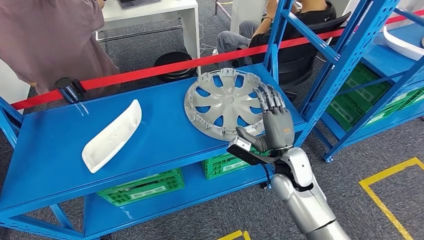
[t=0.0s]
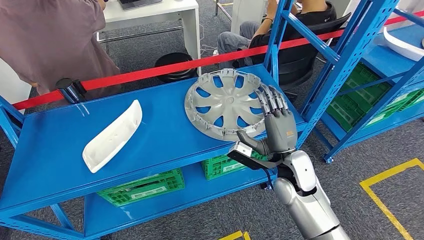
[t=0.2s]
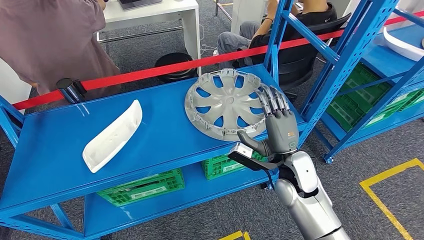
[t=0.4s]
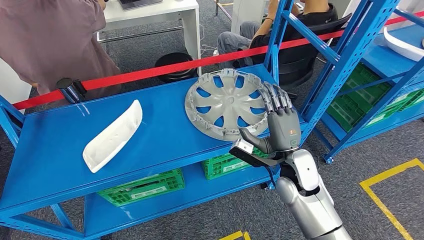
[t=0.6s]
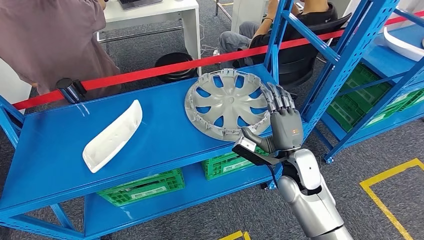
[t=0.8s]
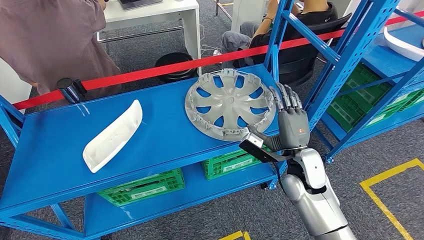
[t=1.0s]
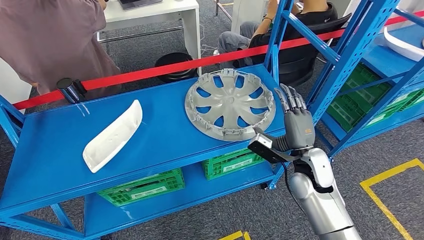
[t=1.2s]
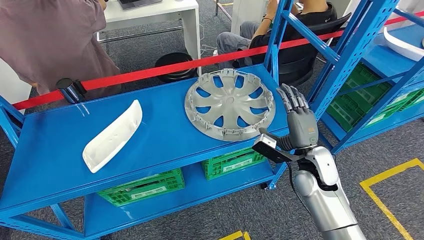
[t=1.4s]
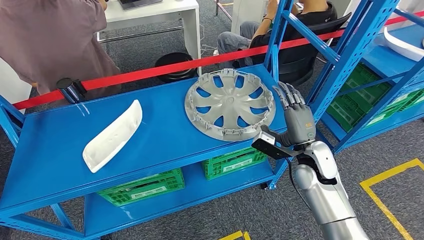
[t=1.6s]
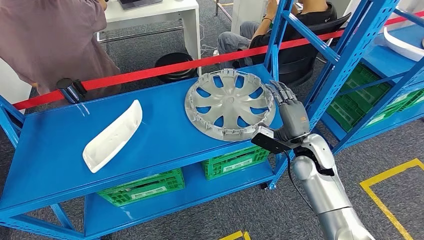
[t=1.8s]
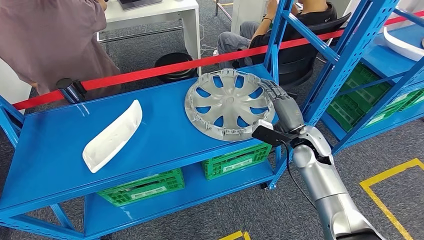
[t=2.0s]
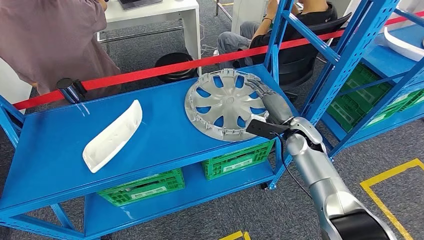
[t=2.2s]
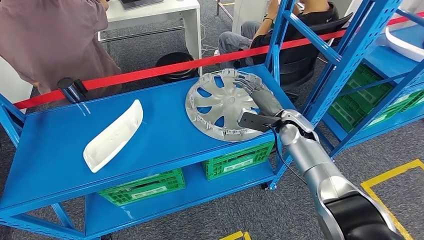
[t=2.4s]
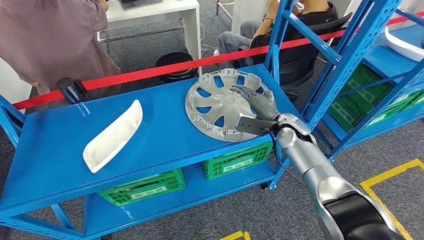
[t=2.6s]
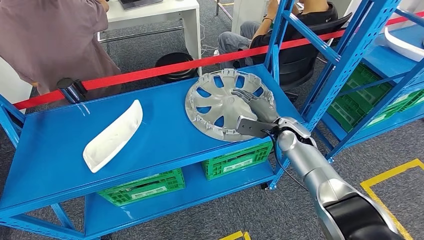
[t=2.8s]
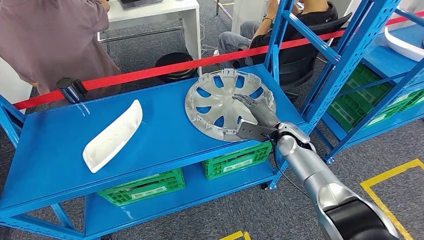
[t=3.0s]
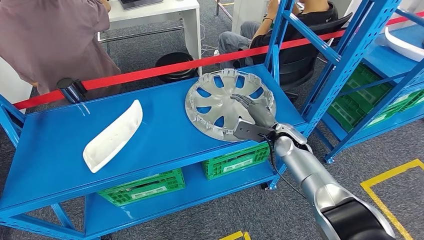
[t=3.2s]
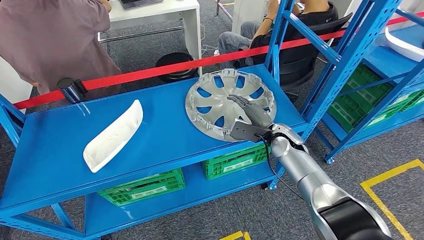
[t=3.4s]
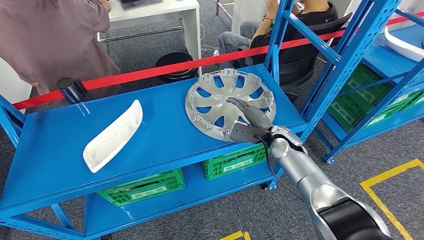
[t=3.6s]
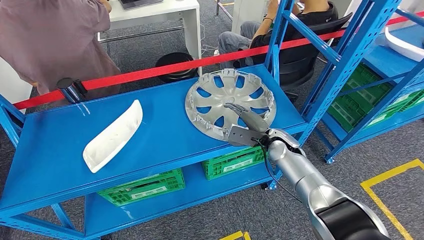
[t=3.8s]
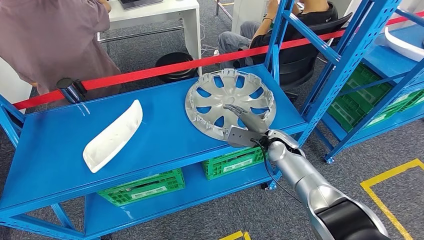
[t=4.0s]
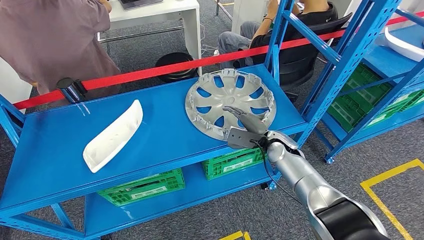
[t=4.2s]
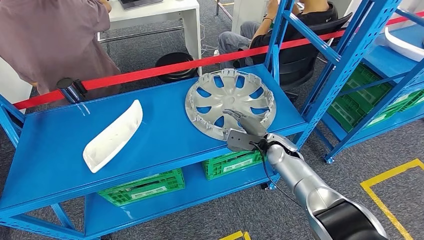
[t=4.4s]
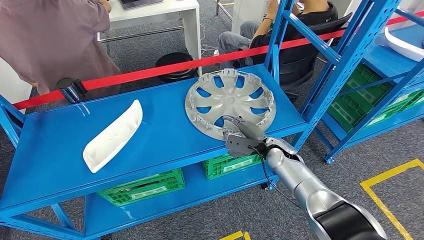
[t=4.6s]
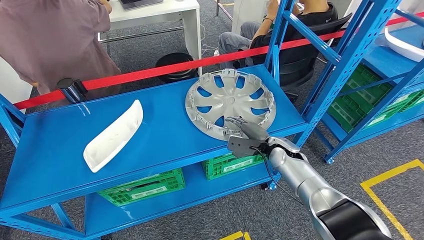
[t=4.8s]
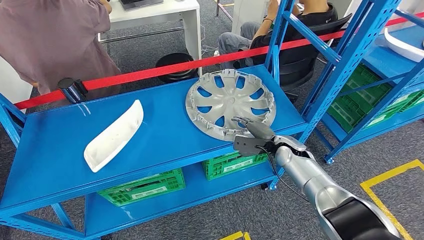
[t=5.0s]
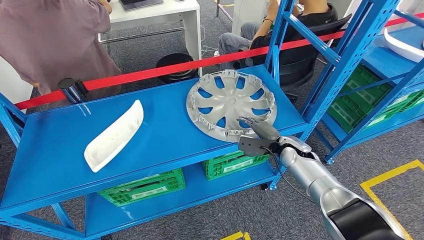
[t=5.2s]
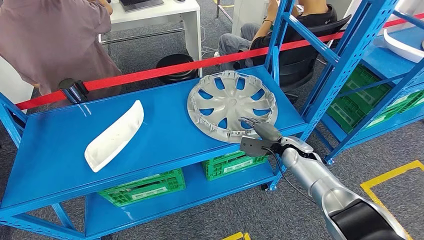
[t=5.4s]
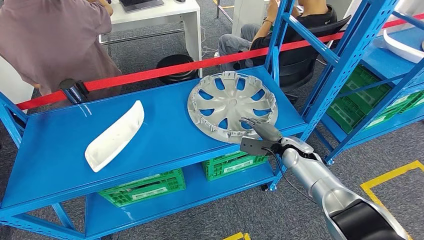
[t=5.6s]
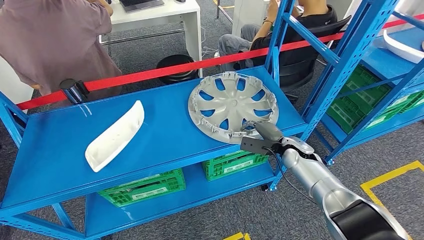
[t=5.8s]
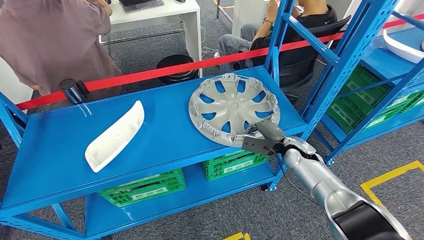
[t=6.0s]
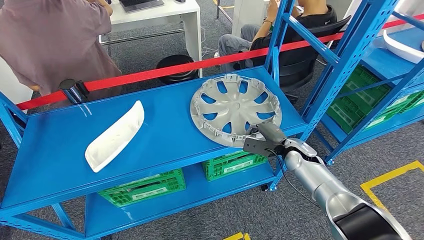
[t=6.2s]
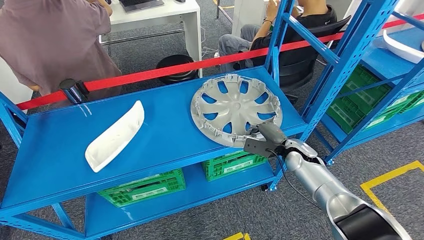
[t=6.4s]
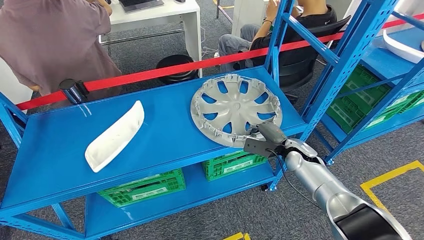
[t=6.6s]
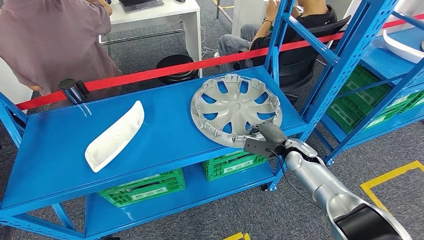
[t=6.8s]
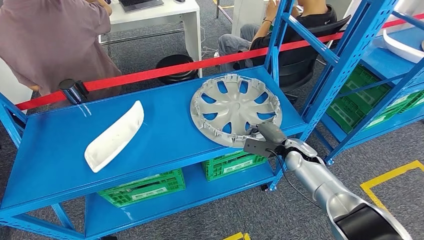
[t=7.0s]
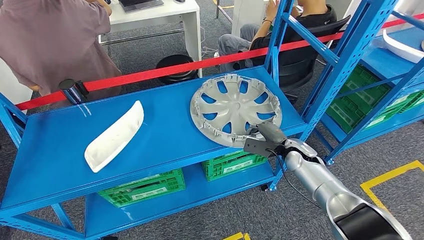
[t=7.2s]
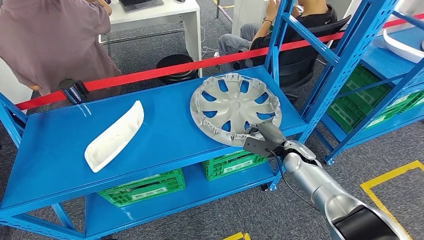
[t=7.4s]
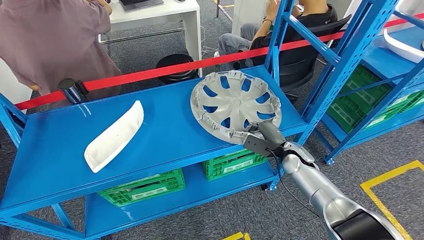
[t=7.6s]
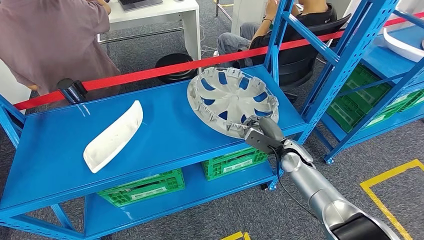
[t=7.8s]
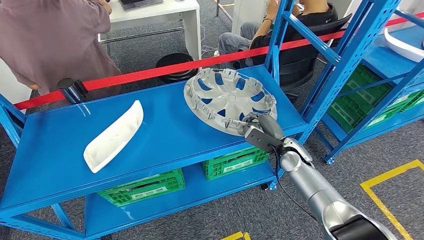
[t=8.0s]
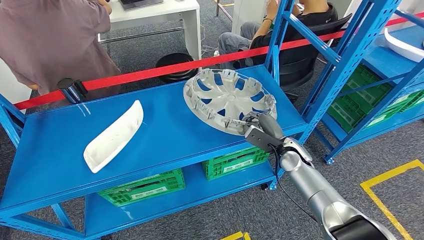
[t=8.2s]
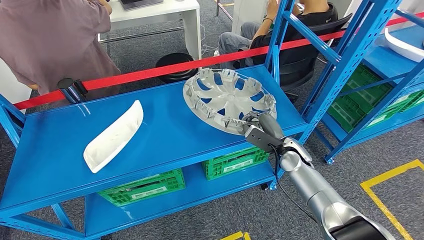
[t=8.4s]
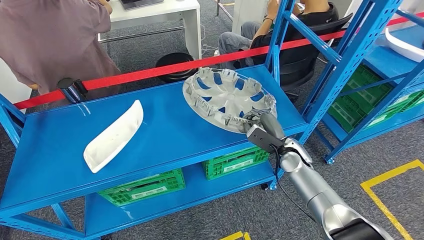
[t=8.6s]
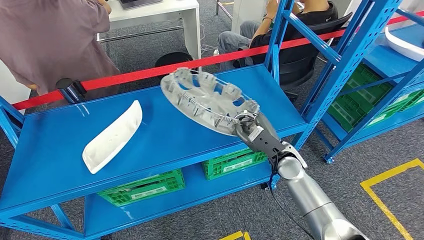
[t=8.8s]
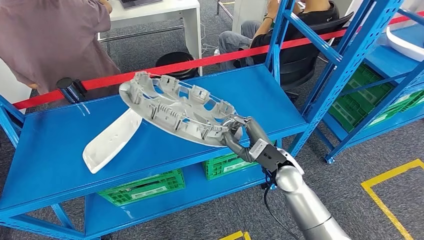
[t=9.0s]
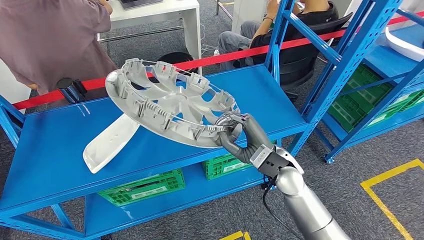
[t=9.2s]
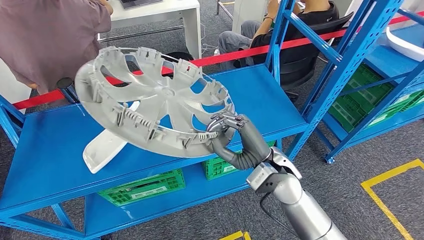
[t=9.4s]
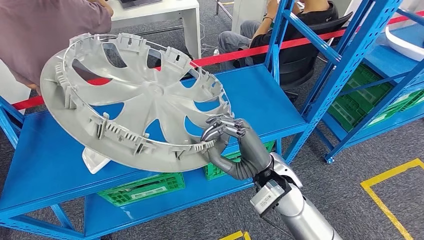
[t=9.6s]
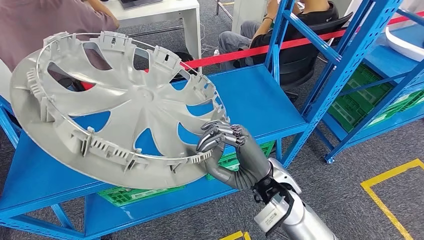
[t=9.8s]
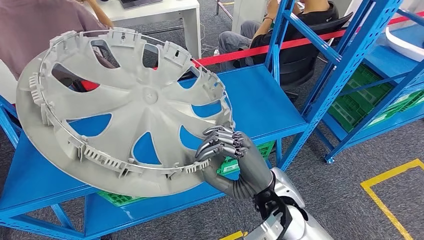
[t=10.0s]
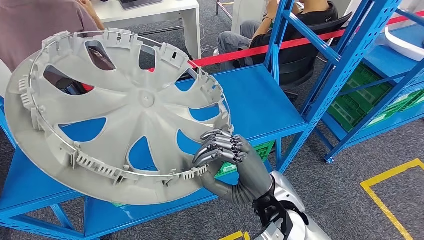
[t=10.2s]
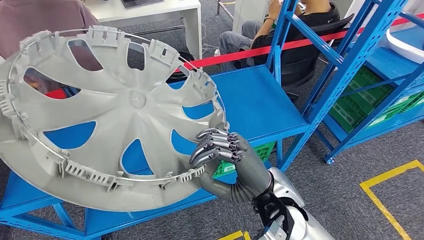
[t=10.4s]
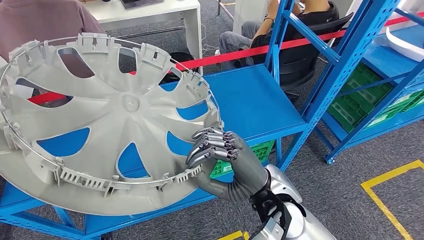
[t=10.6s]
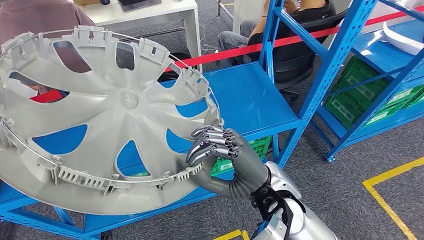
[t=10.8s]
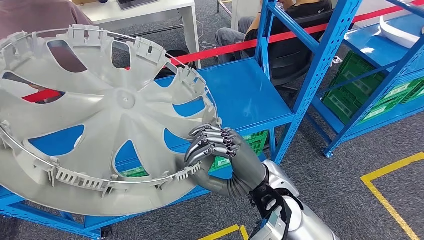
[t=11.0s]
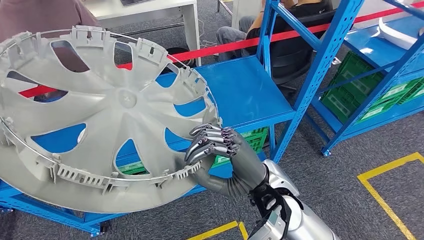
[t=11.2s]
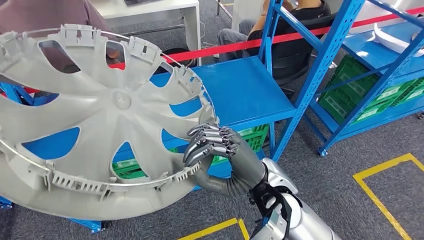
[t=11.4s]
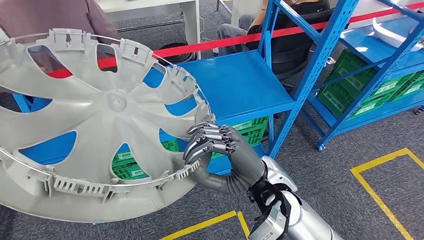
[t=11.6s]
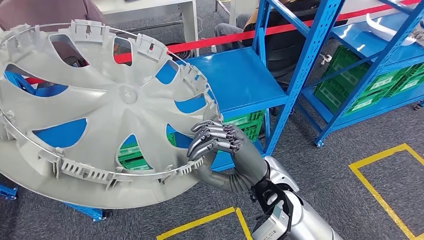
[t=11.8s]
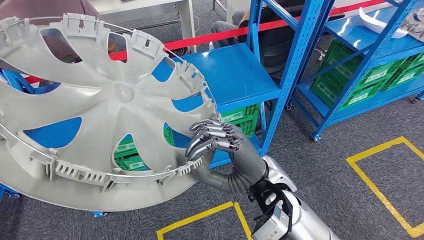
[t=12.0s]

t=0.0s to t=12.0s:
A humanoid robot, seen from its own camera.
t=0.0s to t=1.6s: The right hand goes some 5 cm to the right.
t=1.6s to t=3.0s: The right hand is displaced forward by roughly 5 cm.
t=3.0s to t=4.4s: There are only small adjustments of the hands.
t=4.4s to t=6.0s: The right hand goes some 5 cm to the right.

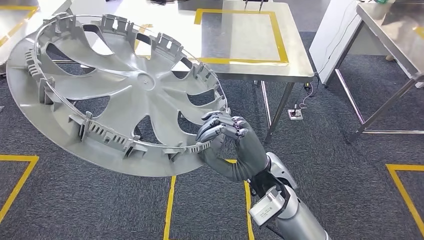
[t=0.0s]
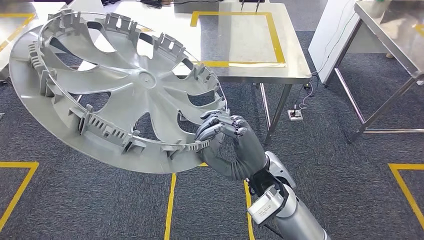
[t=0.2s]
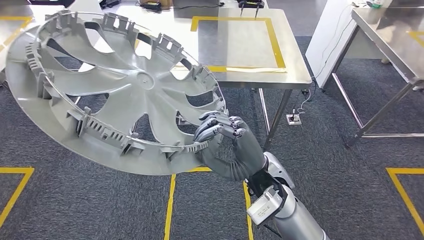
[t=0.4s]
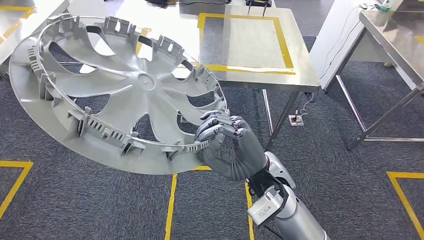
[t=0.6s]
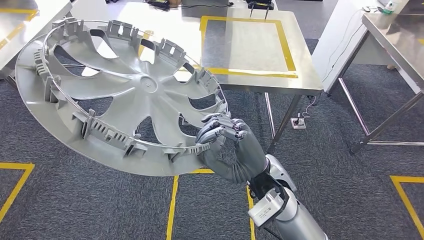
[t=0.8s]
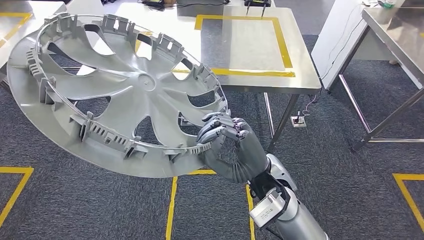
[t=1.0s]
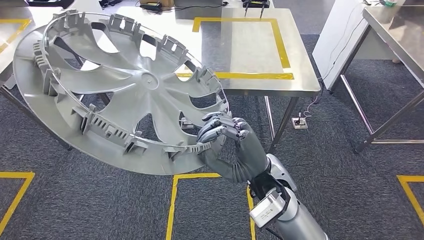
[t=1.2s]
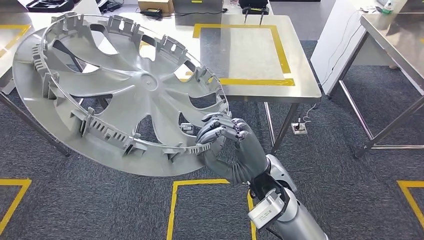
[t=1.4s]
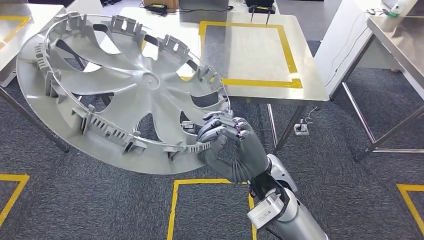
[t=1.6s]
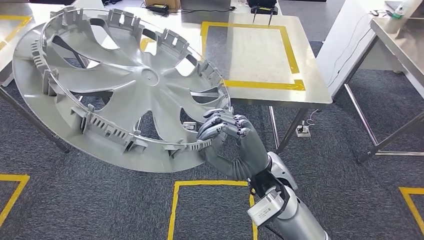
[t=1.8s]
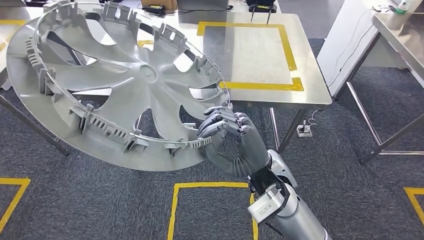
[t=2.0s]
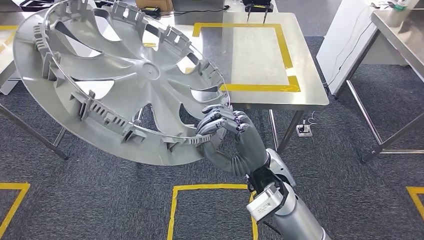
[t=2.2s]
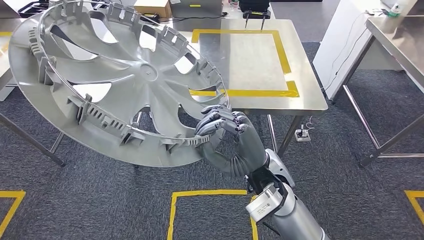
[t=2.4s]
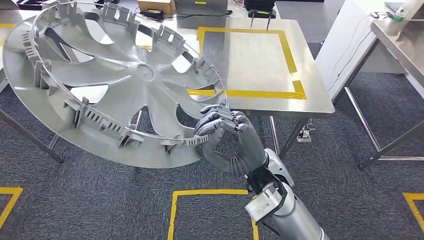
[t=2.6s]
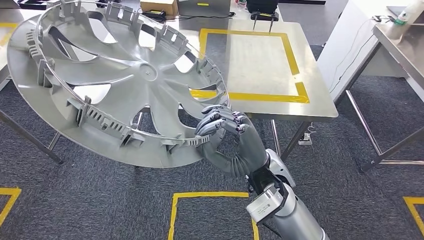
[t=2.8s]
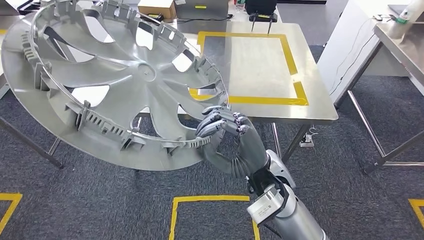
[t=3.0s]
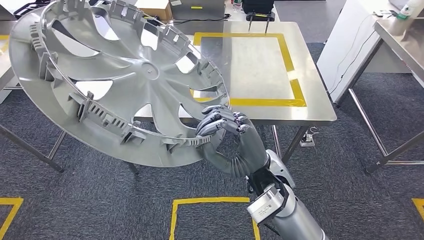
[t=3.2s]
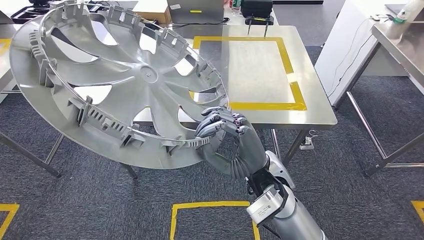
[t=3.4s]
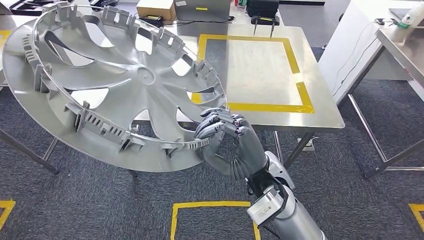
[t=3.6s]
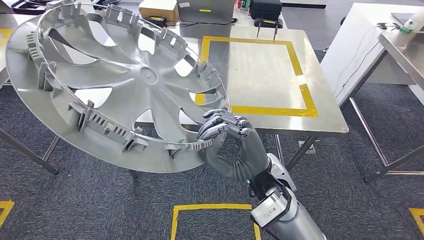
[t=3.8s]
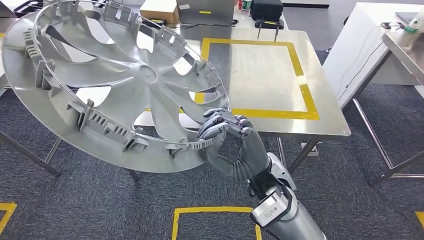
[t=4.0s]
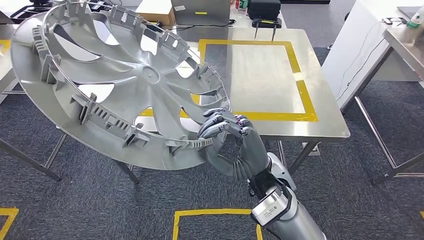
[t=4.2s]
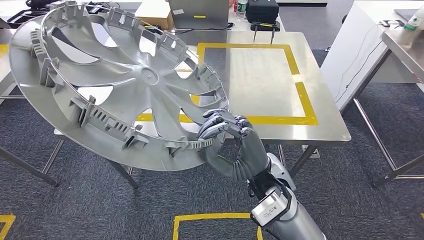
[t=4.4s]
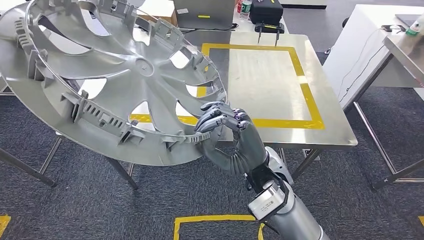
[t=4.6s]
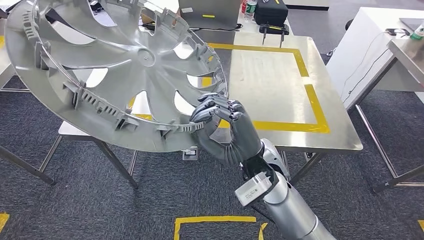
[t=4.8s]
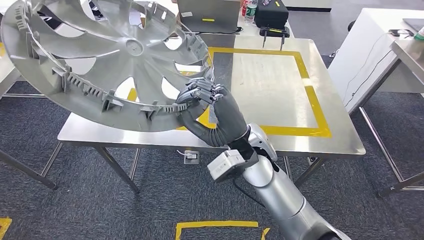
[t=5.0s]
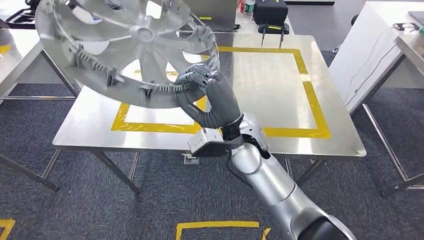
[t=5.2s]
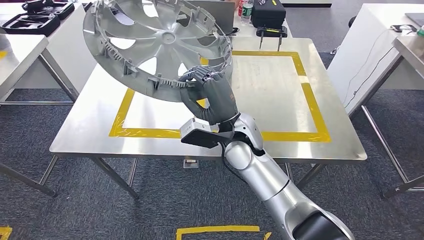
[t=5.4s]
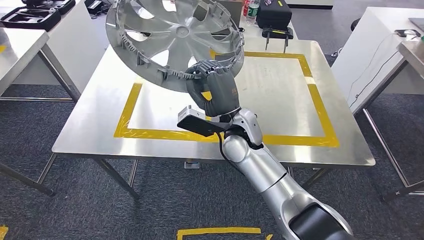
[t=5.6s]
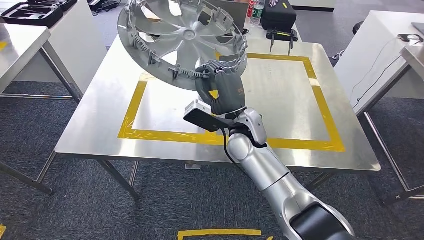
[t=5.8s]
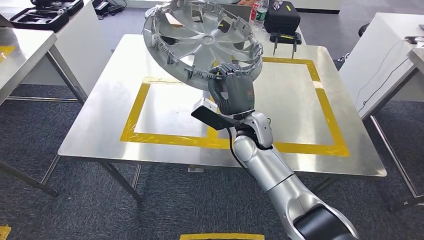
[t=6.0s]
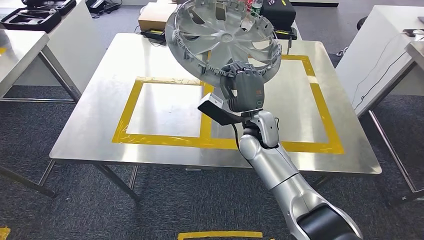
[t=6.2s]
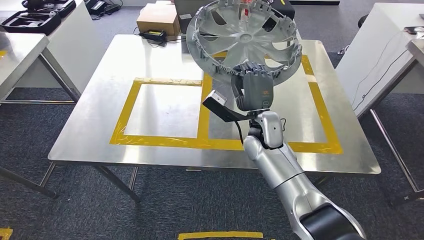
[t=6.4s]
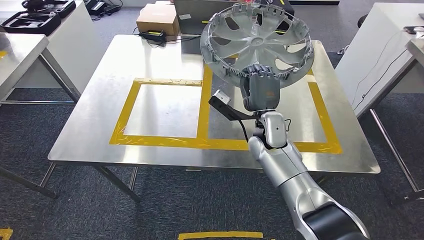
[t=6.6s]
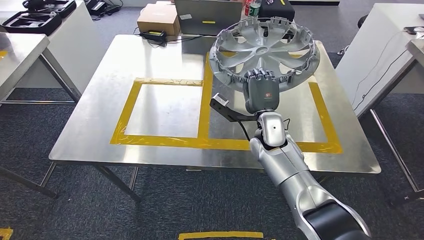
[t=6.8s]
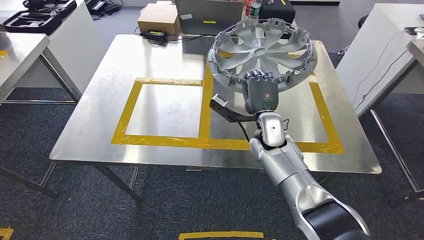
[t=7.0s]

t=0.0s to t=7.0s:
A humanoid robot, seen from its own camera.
Step, t=0.0s to t=2.2s: Move the large material to the workbench.
